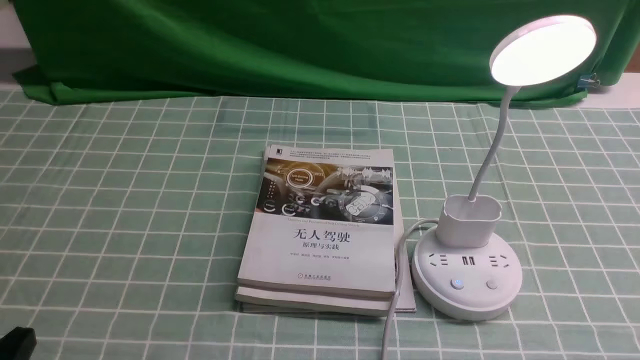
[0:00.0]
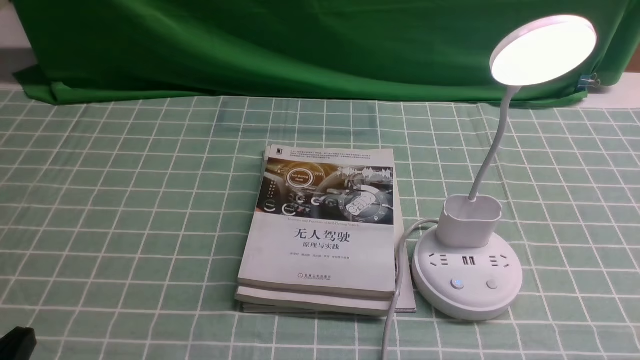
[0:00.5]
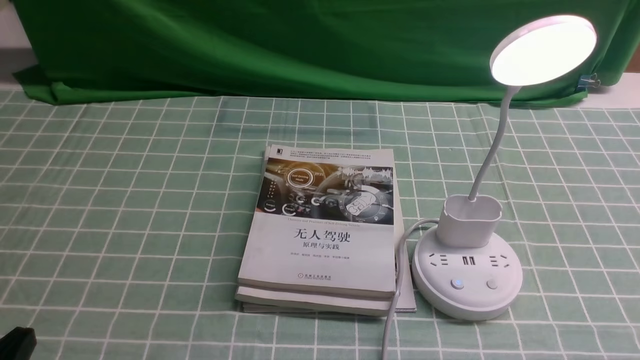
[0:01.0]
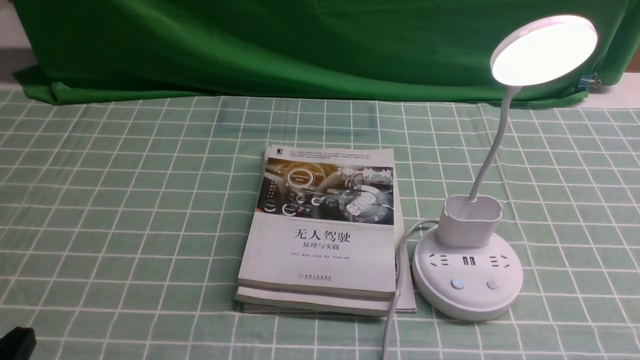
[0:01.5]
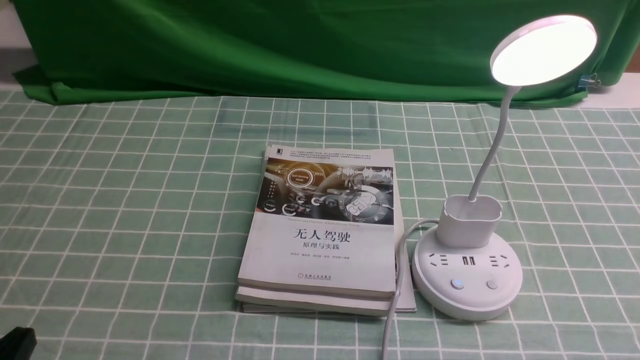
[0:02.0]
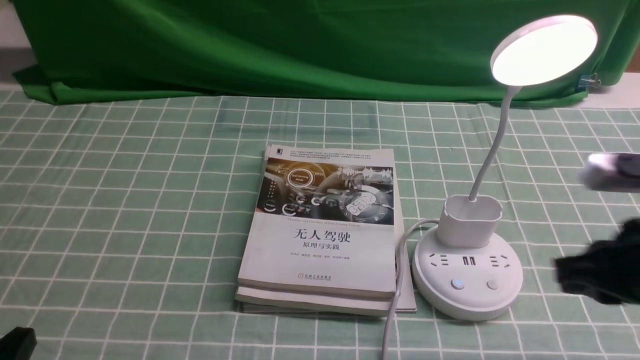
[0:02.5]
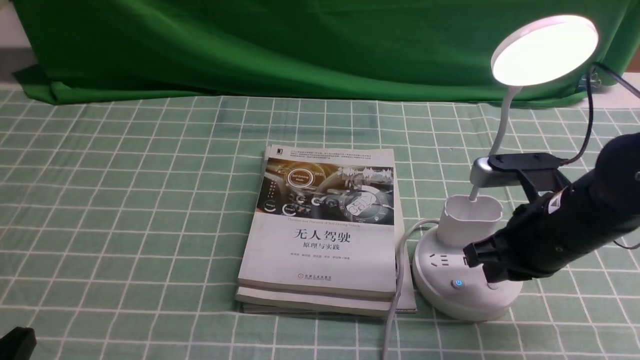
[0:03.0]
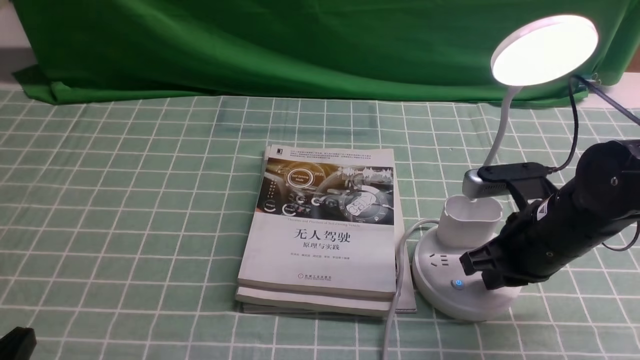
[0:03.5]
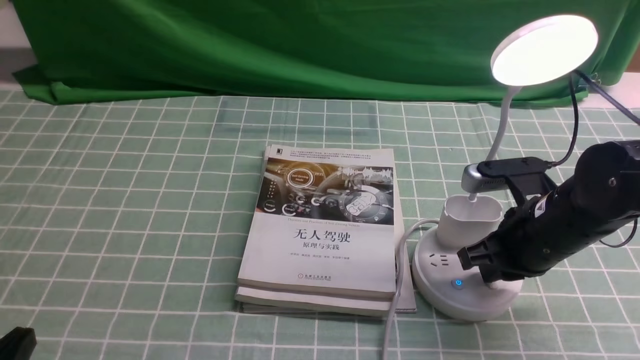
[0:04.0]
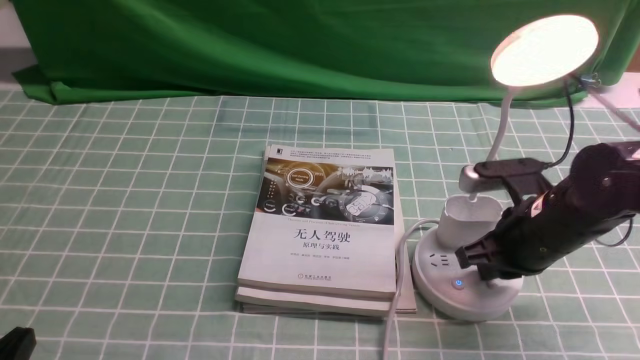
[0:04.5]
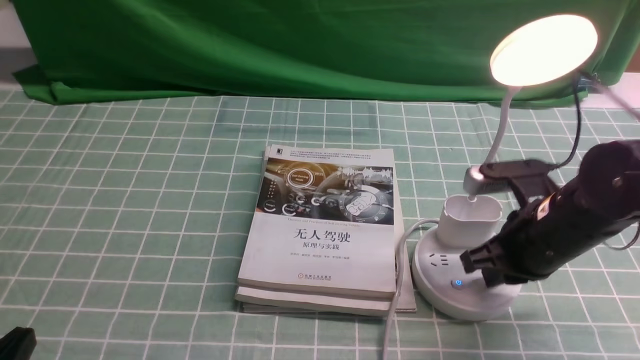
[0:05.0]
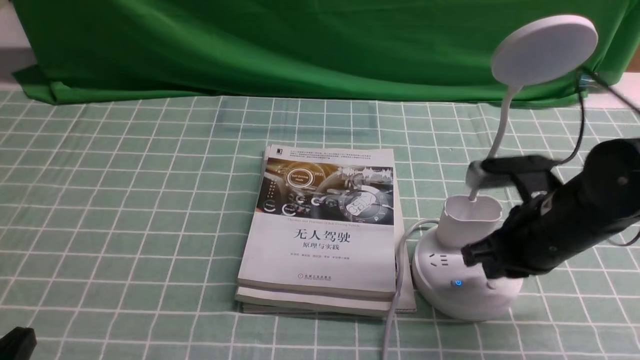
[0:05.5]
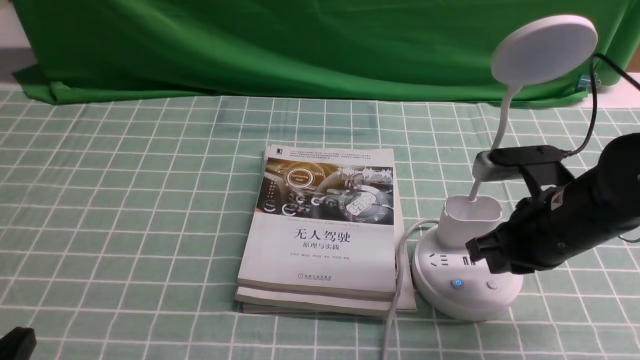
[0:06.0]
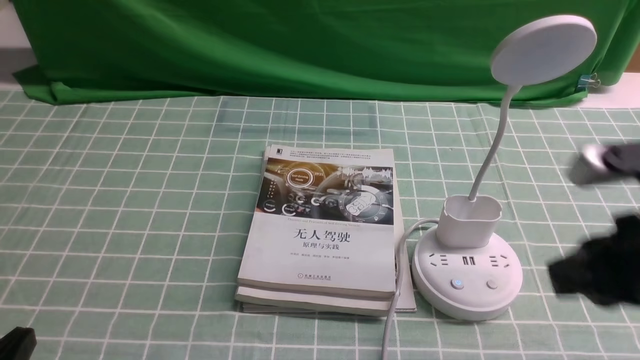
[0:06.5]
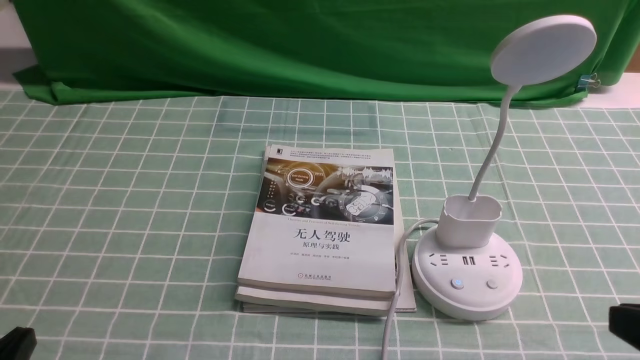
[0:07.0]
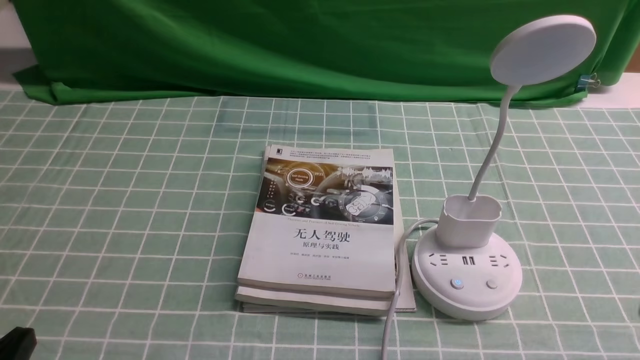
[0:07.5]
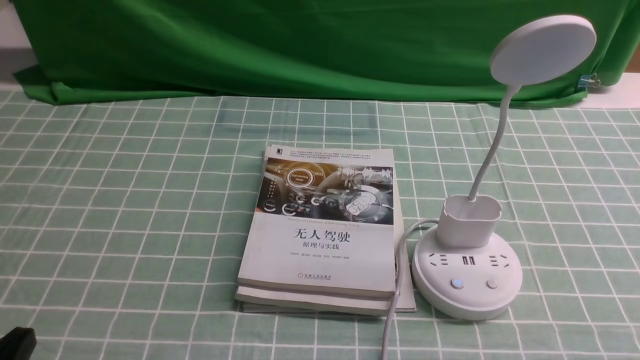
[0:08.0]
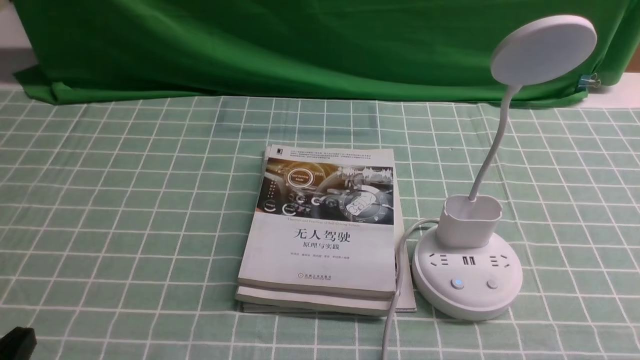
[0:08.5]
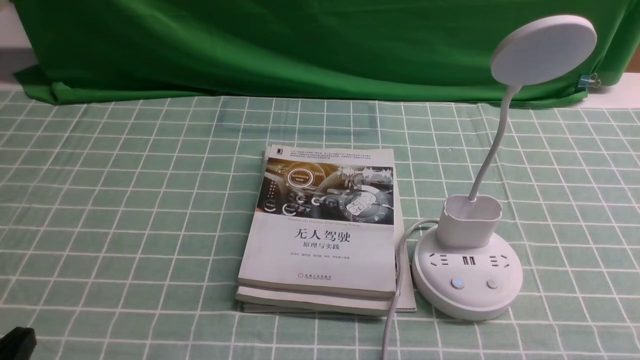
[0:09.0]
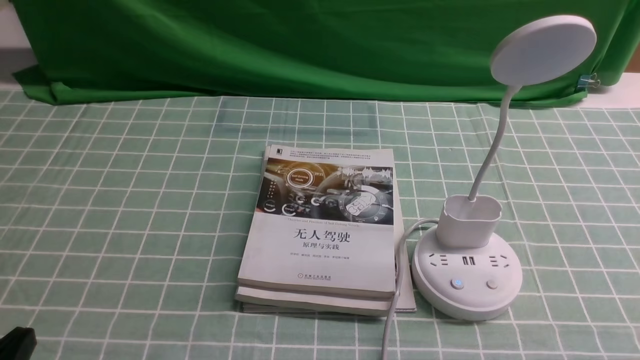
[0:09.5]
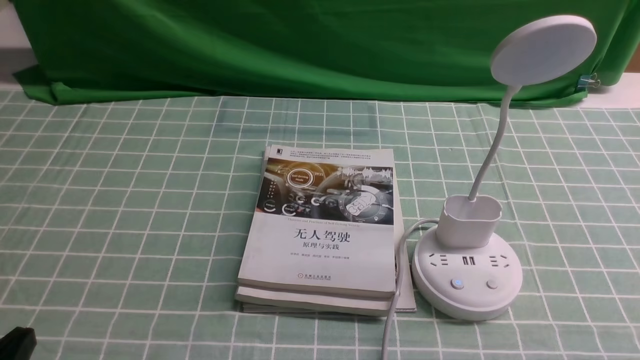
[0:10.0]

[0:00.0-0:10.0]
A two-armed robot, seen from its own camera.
Task of the whole recording: turn off the desk lamp on the blue coffee tablecloth by hand.
Step, 0:00.0 to 0:05.5: use the right arm to press the button switch on the lamp holder.
0:02.0 to 0:04.0: The right gripper moves forward and to the left, approximately 25 cm.
0:04.0 to 0:06.0: The grippers move only a little.
0:06.0 to 0:08.0: The right gripper moves backward and to the right, approximately 25 cm.

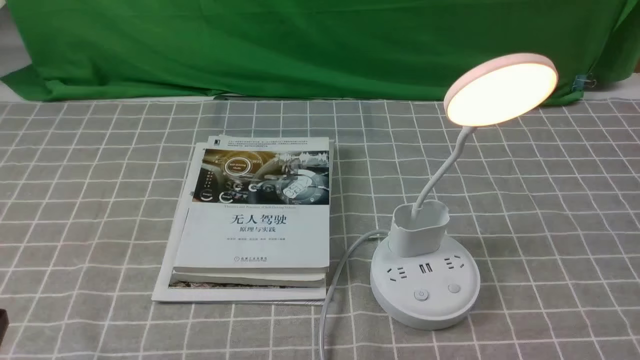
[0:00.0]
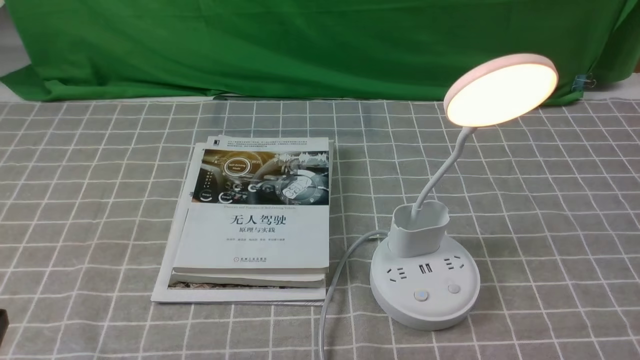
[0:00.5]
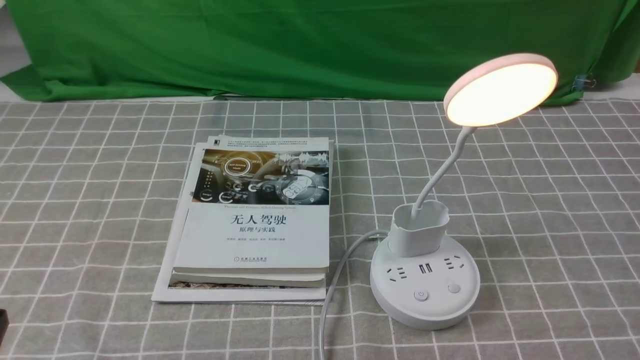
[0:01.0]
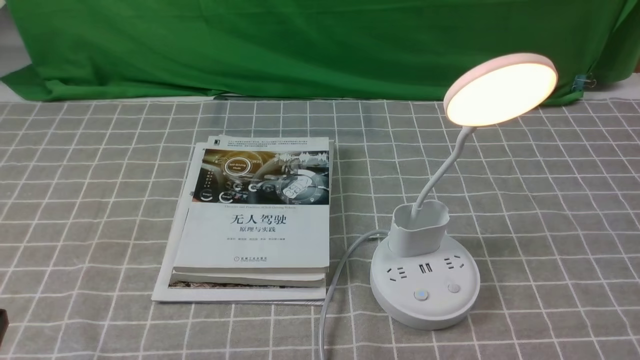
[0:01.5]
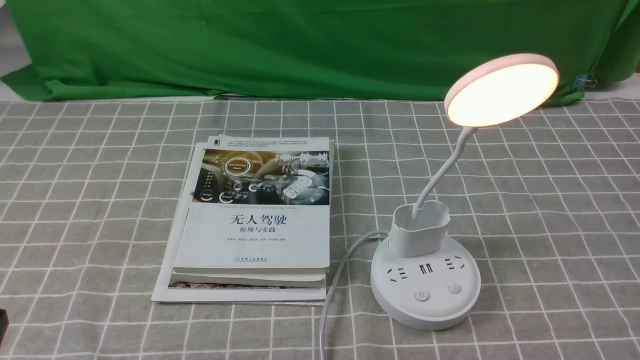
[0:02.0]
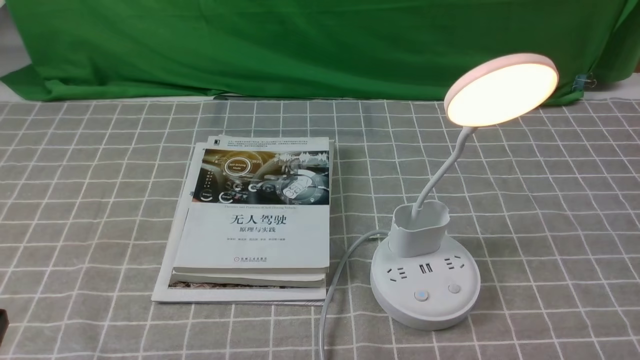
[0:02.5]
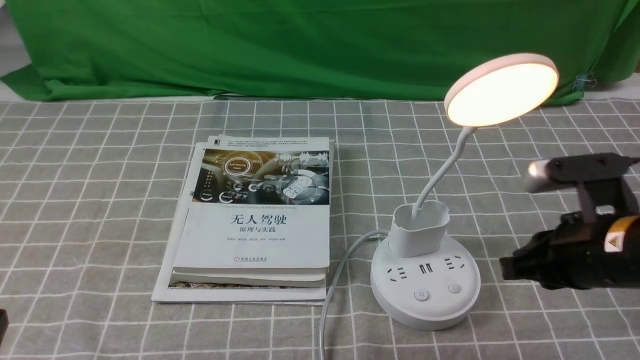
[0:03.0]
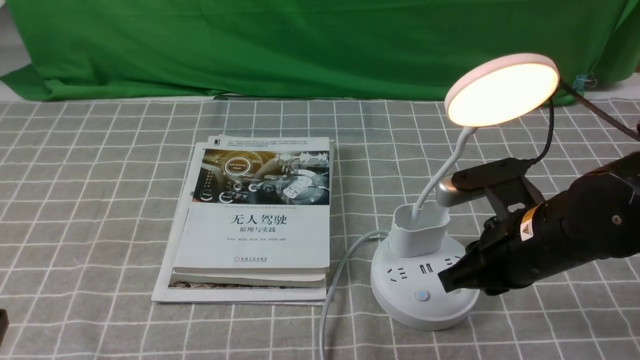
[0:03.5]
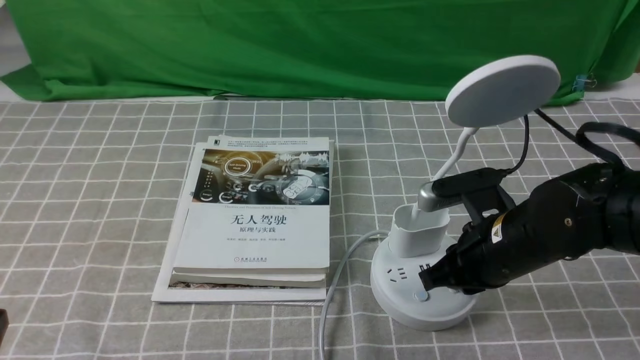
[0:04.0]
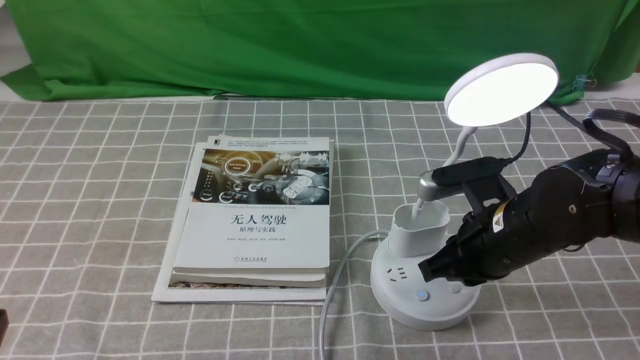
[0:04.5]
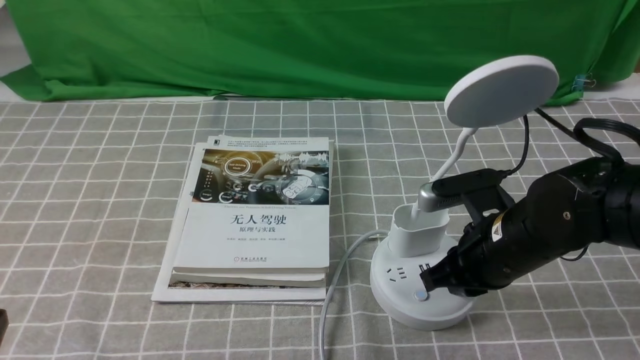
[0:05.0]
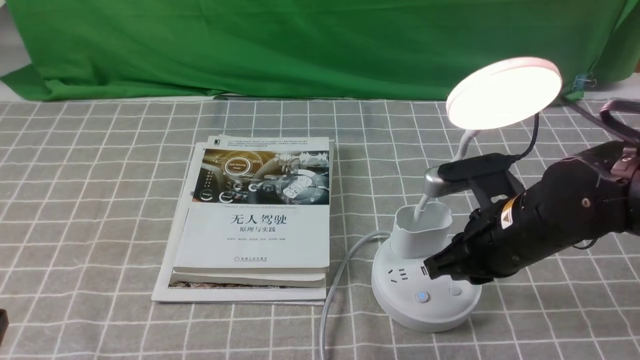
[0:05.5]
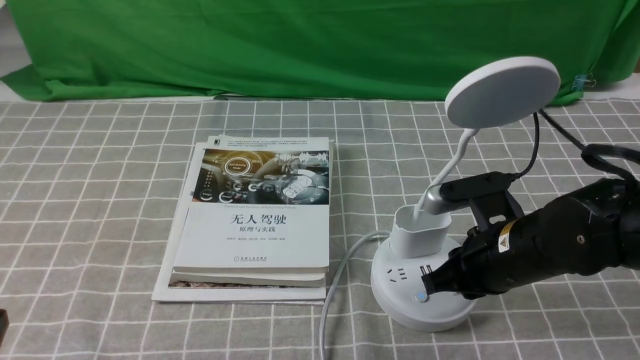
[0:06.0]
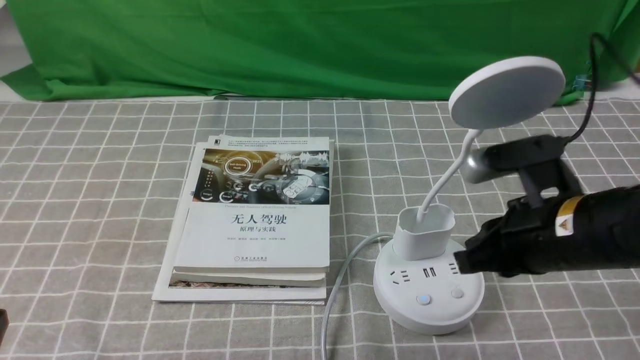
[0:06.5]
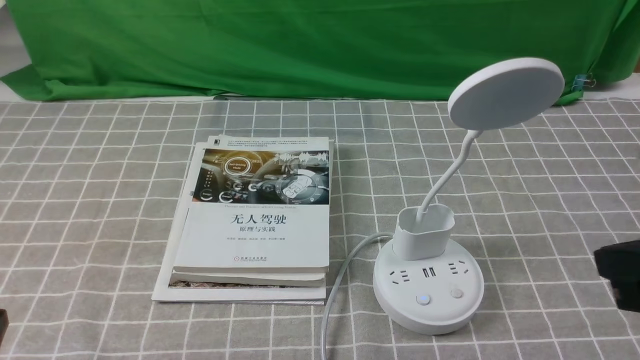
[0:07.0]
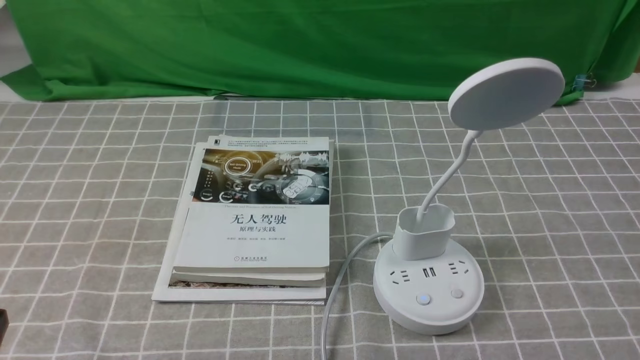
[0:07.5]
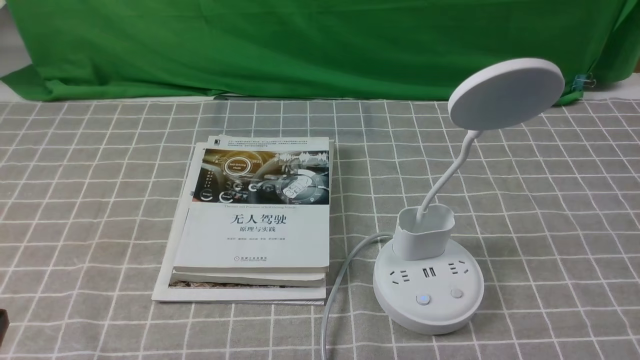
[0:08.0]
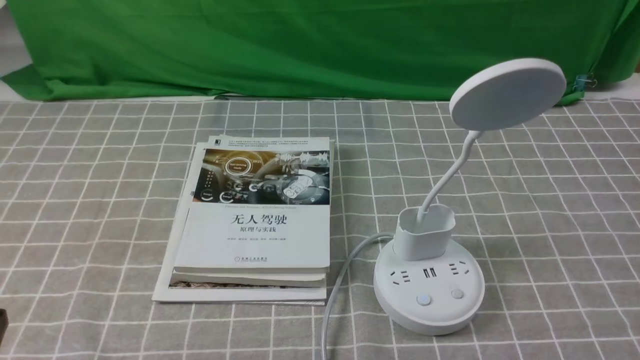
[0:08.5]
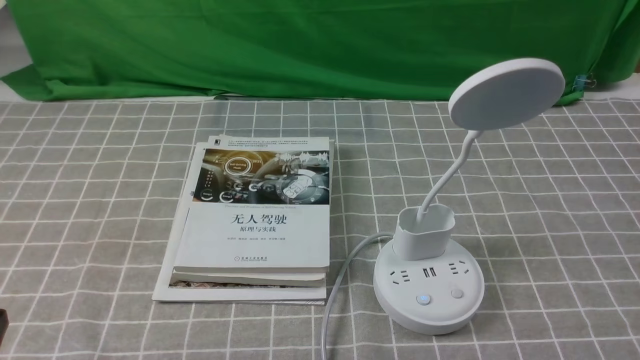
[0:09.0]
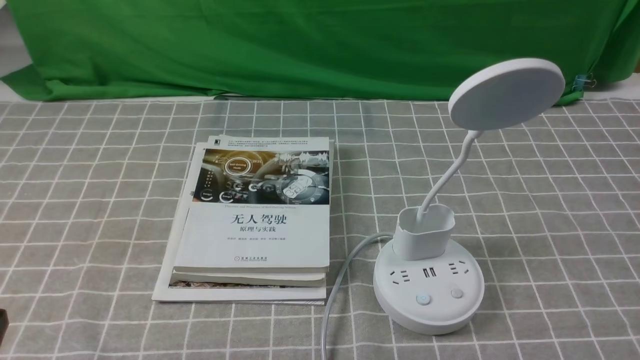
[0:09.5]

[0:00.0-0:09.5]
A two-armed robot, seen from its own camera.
Task of the whole recording: turn off the desk lamp on the grey coffee tablecloth by hand.
Step, 0:00.0 to 0:06.0: use the right arm to press the button switch on the lamp holder.
0:02.0 to 0:04.0: The right gripper goes approximately 30 cm forward, to the left and downward.
0:04.0 to 0:05.5: The grippers stay close to where they were, moving slightly.
0:05.5 to 0:07.5: The right gripper travels backward, upward and to the right by some 25 cm, and closes.
